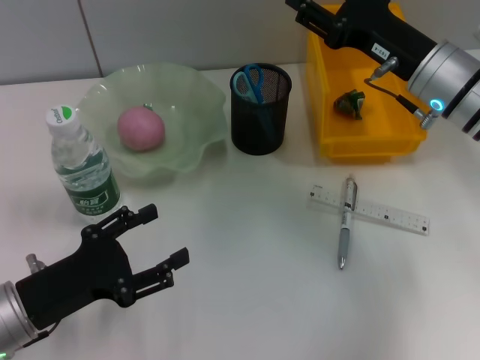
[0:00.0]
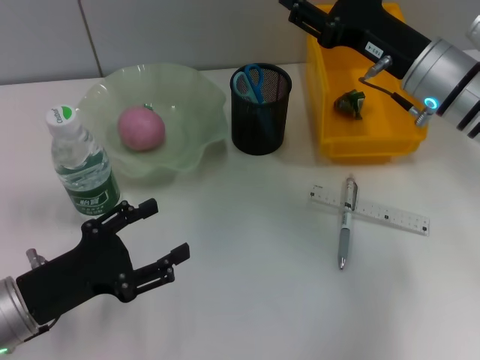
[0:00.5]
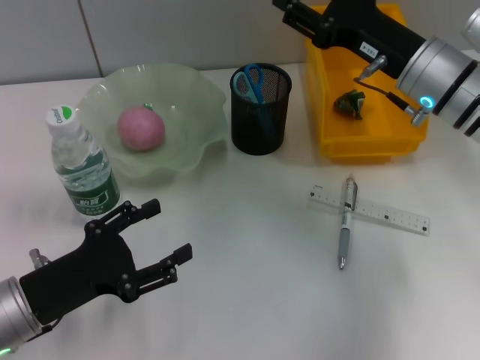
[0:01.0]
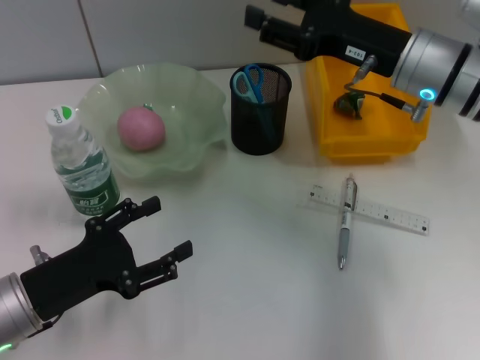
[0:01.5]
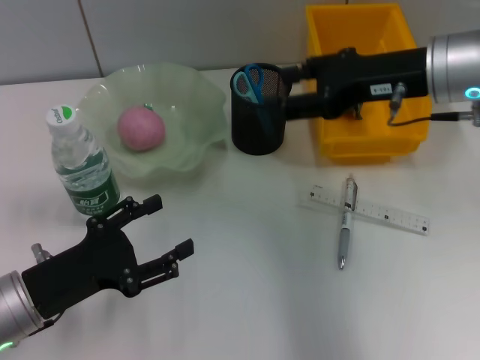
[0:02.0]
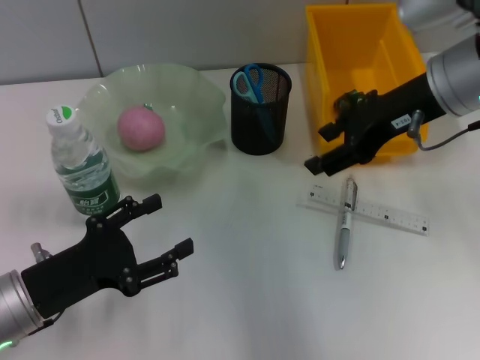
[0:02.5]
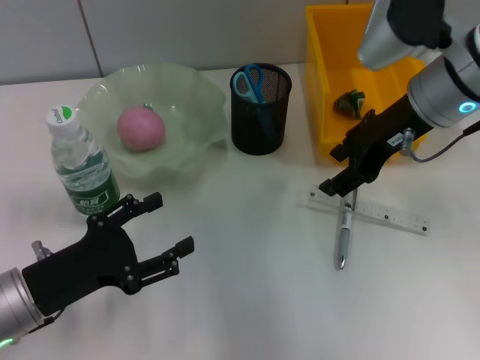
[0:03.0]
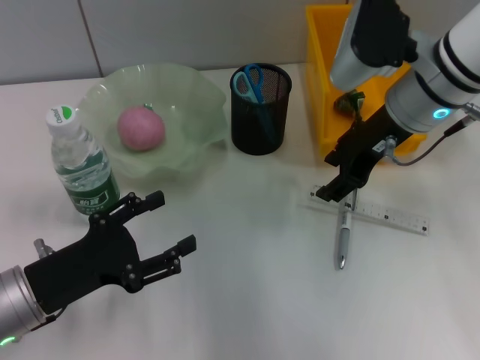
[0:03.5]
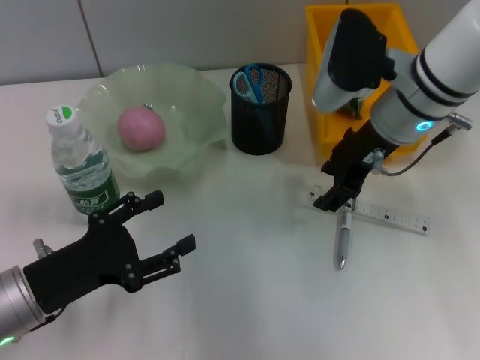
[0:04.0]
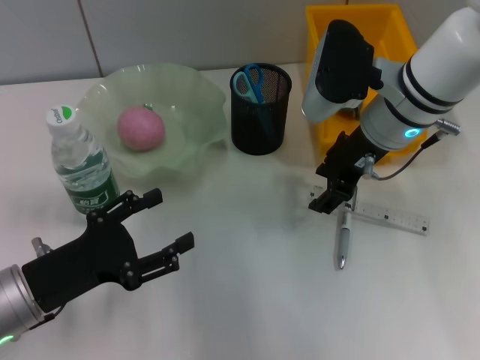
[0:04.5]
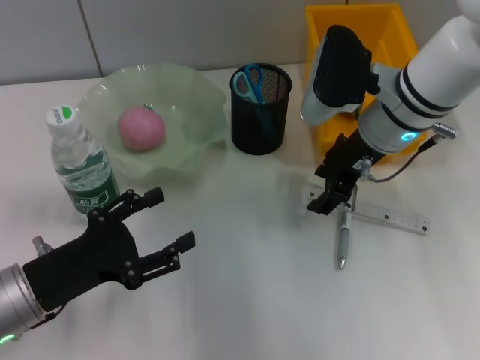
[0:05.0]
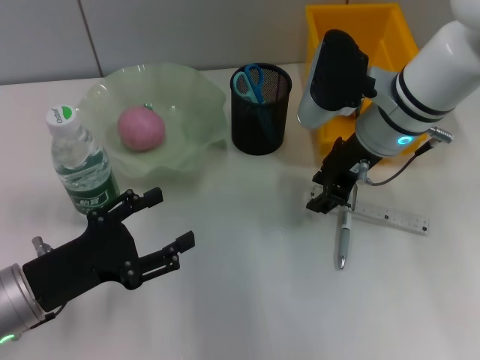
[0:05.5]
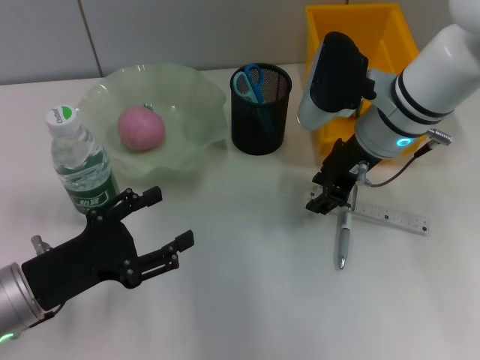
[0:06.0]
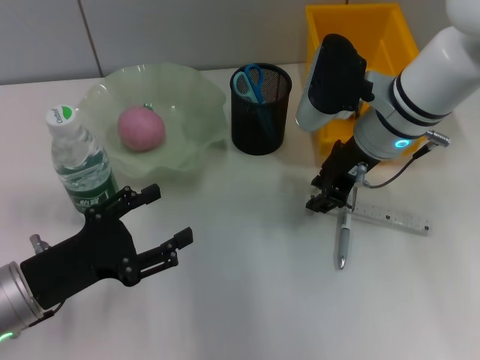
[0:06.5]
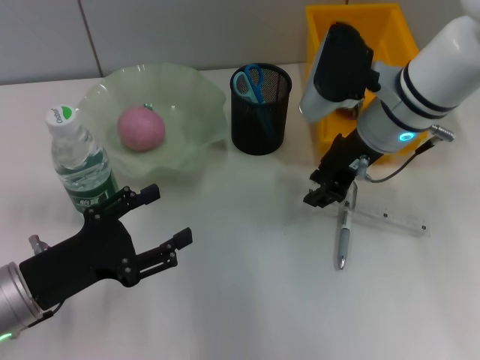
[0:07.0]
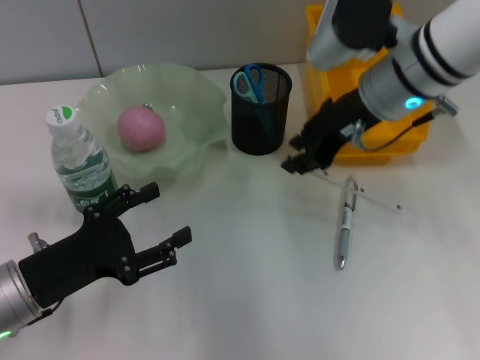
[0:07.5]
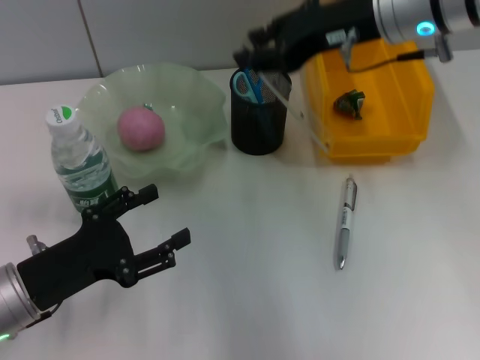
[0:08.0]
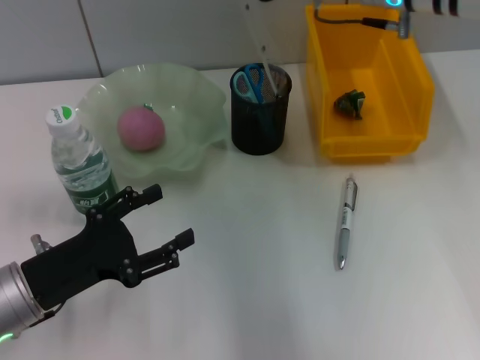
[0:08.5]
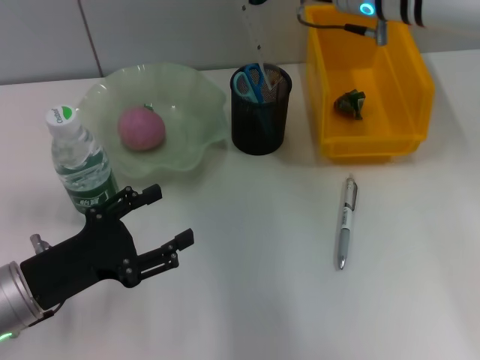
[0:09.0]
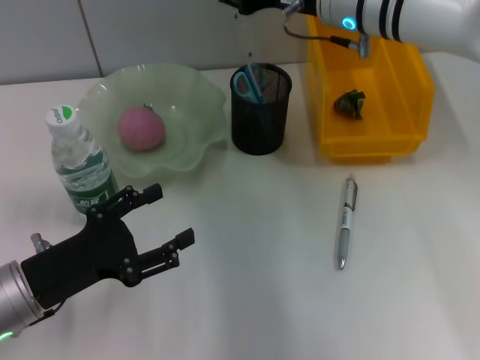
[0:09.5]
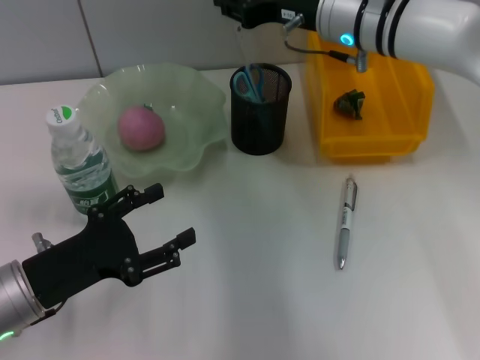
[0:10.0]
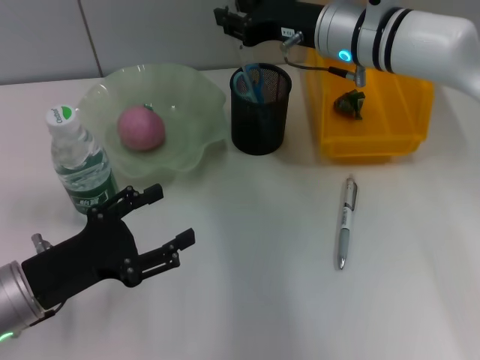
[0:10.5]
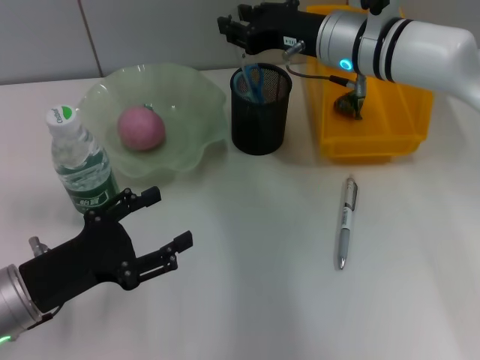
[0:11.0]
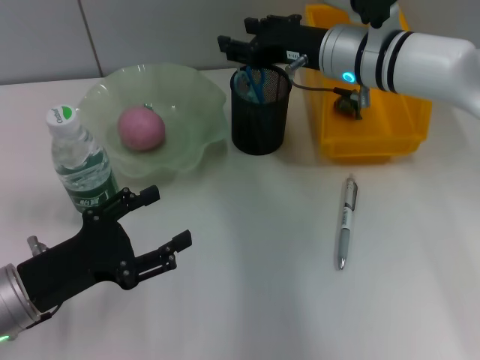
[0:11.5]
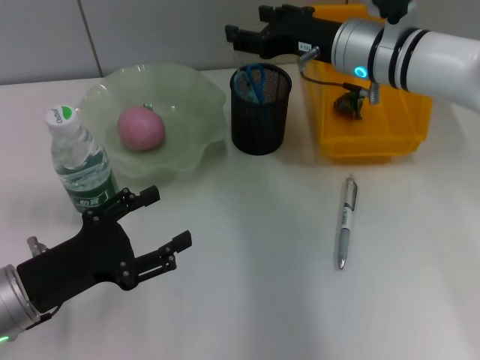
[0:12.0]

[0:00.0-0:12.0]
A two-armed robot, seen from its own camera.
Step, 0:00.0 to 0:07.0: Grab the ruler with the right hand.
0:00.0 to 0:02.0: The right gripper moves upward, about 5 cm.
0:02.0 to 0:04.0: The right gripper shifts by roughly 5 cm.
0:04.0 to 0:06.0: The grippers move only a little.
0:06.0 to 0:08.0: The right gripper goes approximately 10 cm upward.
0:08.0 to 0:10.0: The right gripper heads downward and forward, covering some 10 cm.
0:10.0 to 0:12.0: The right gripper opens its fingers.

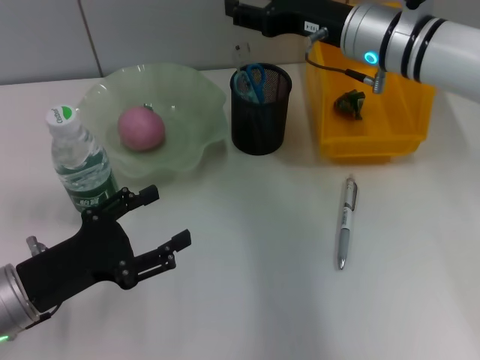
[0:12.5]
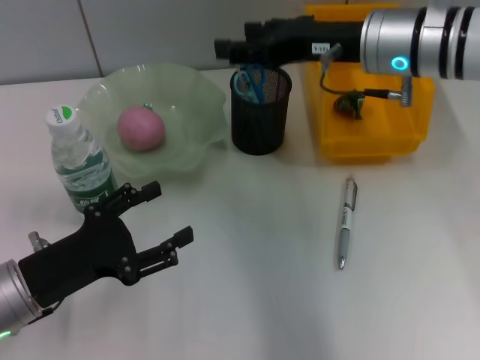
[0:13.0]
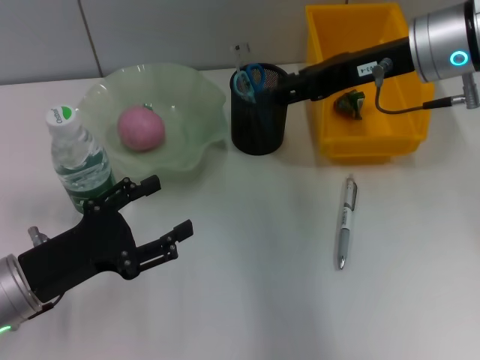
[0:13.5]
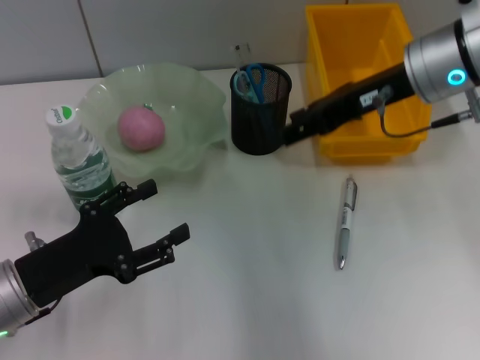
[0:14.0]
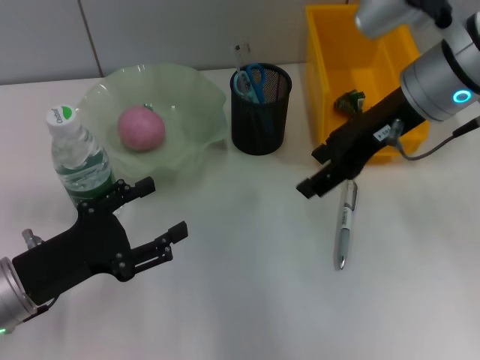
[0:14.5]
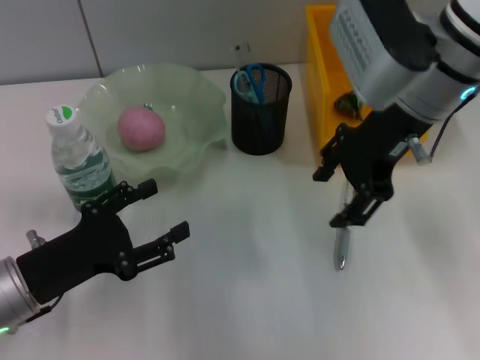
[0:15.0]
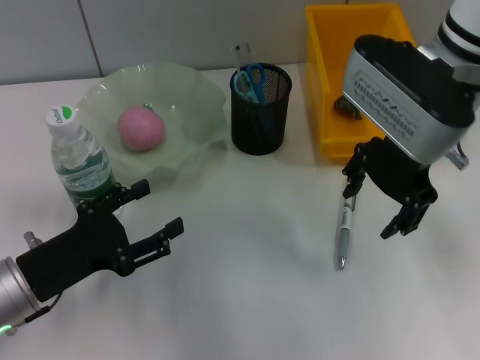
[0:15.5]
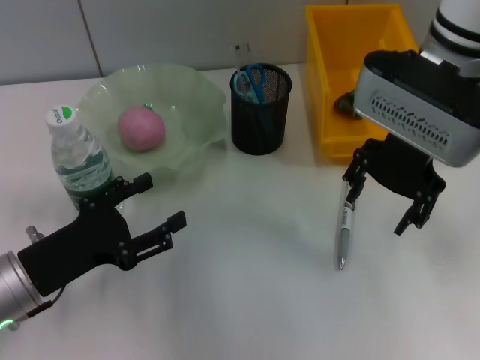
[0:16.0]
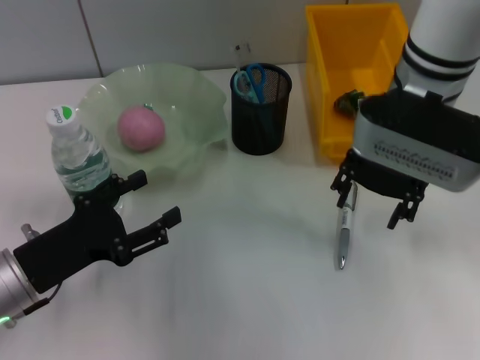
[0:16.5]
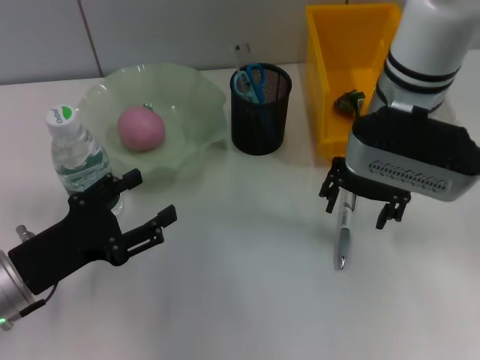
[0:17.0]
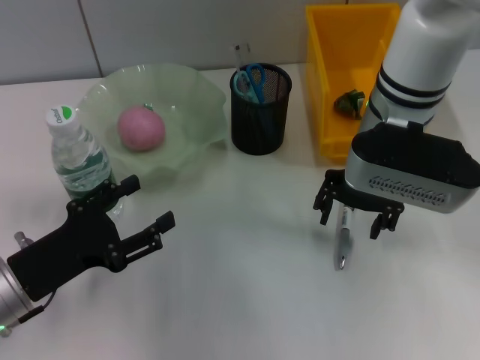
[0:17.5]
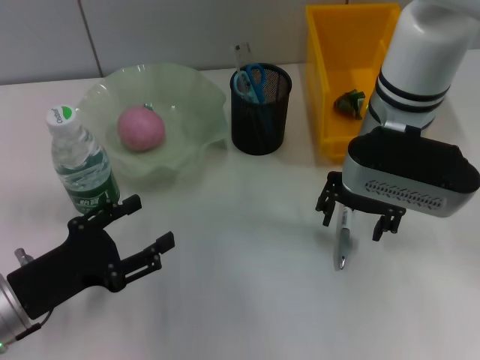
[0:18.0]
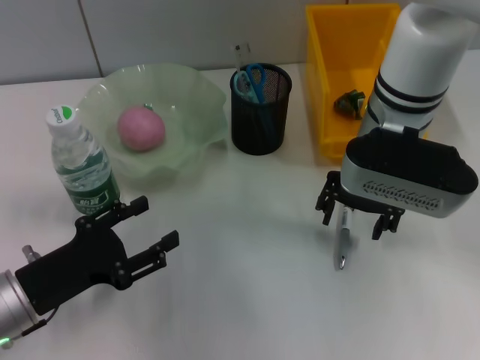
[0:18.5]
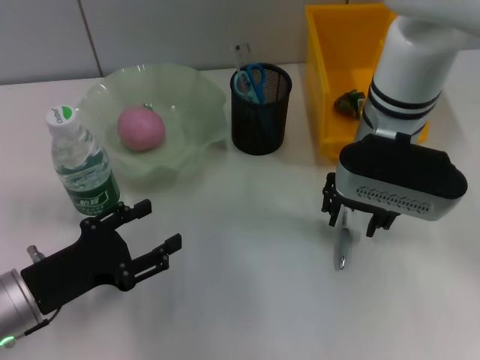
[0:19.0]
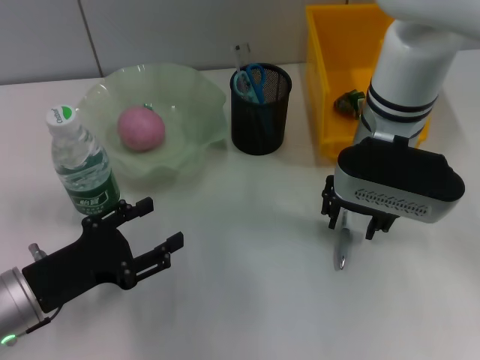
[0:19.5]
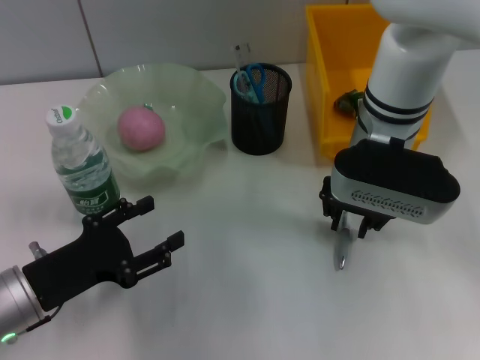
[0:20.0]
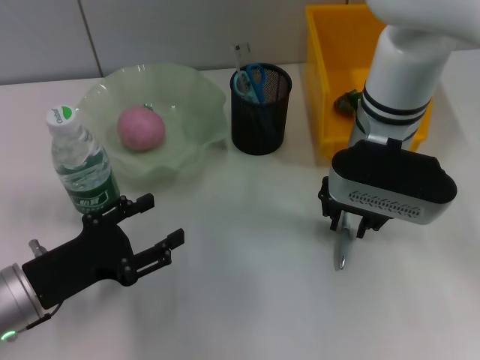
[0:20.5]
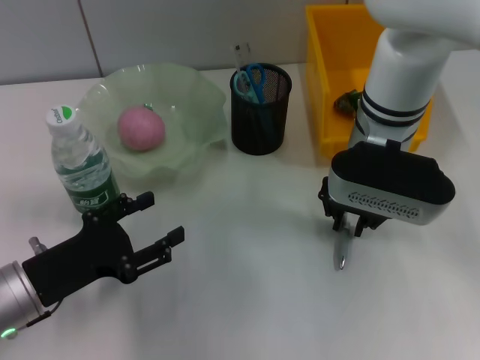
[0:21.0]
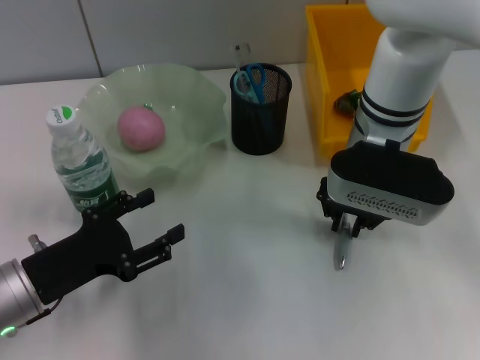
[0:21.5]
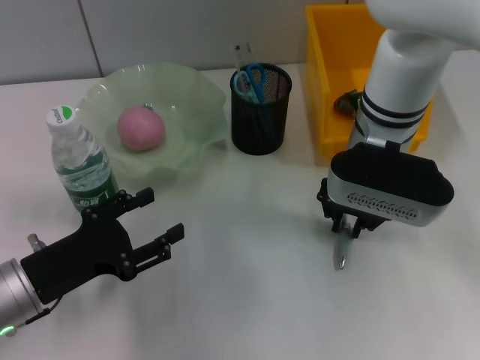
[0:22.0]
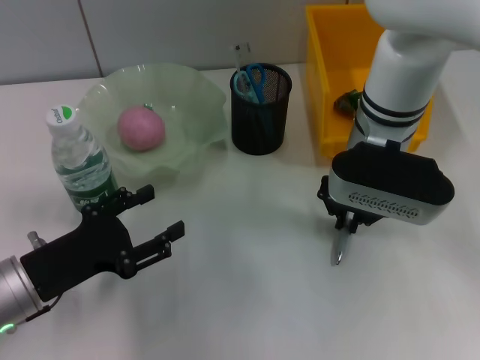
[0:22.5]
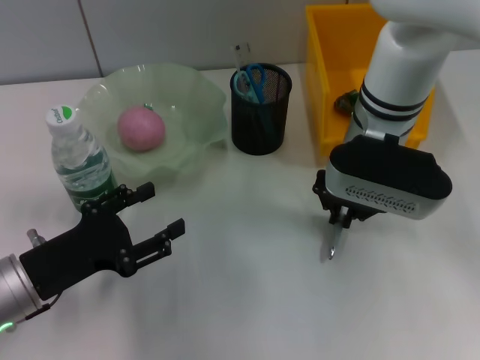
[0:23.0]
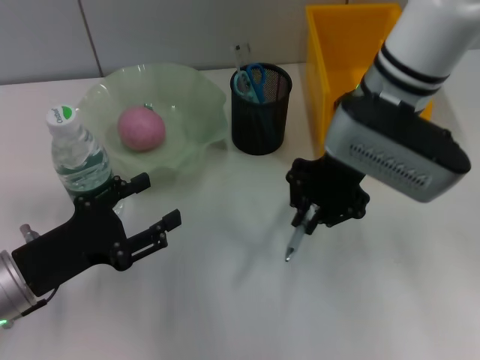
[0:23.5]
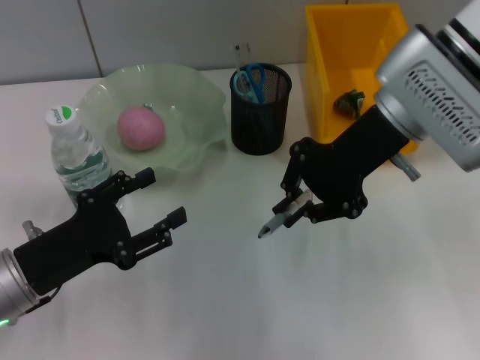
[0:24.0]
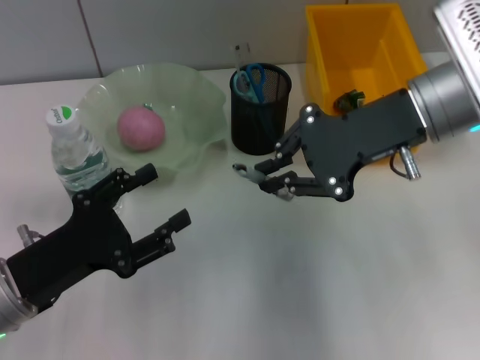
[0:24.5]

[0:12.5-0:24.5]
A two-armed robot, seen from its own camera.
Step, 0:13.0 to 0:22.0: Grab the gray spring-action pen with the right hand.
0:12.5 to 0:14.5: The right gripper shifts about 5 cm backward.
0:16.5 to 0:18.5: The grippers move only a little.
0:18.5 to 0:20.5: The right gripper closes its fingers.
0:20.5 to 0:22.5: Both grippers stay about where they are.
0:22.5 to 0:24.5: The right gripper goes some 10 cm to the right and upward.

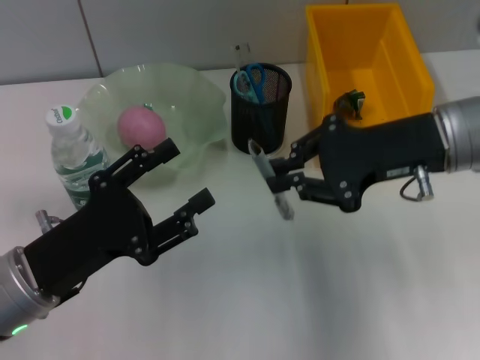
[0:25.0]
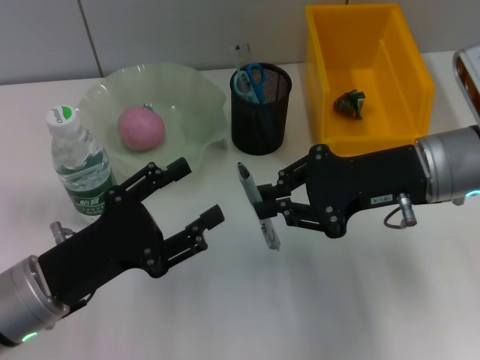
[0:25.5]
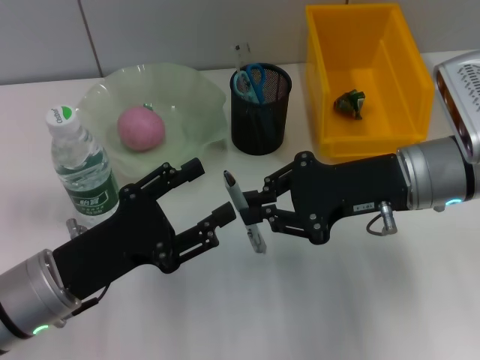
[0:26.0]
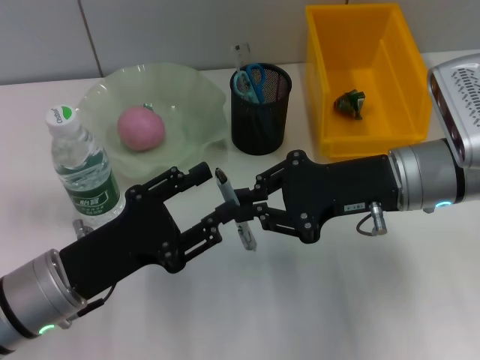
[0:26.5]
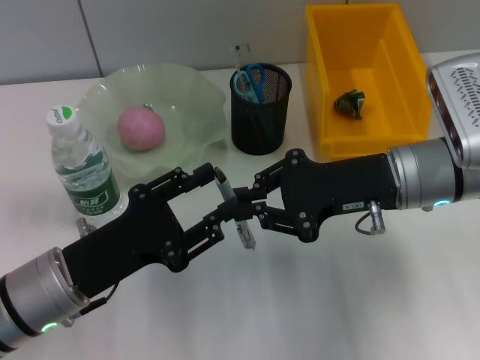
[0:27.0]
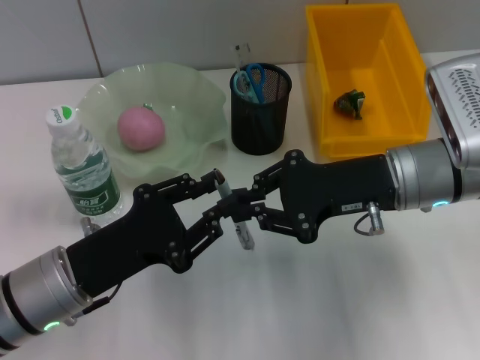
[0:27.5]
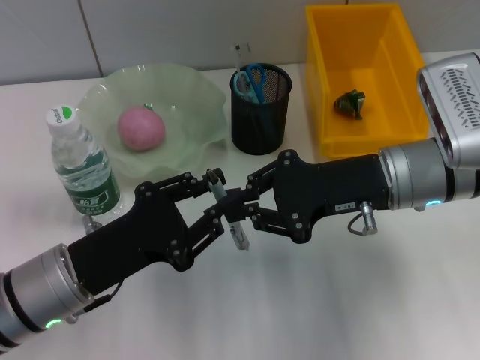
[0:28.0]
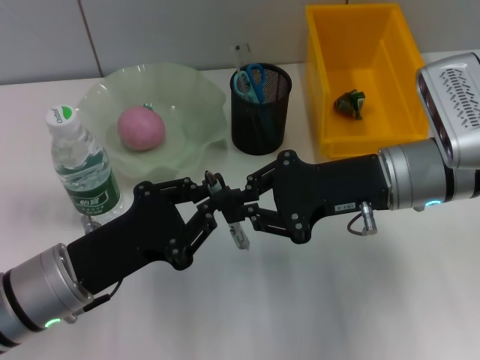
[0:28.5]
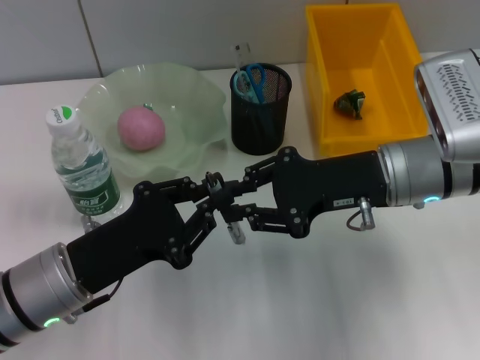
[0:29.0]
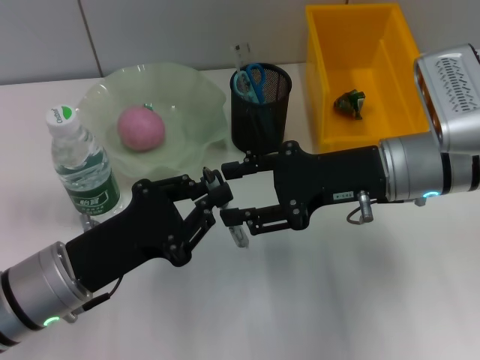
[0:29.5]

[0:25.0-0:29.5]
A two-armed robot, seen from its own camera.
0:25.0 to 0:27.0: The right gripper moves about 5 cm.
0:27.0 to 0:29.5: The left gripper closes up. The right gripper opens its fingers.
